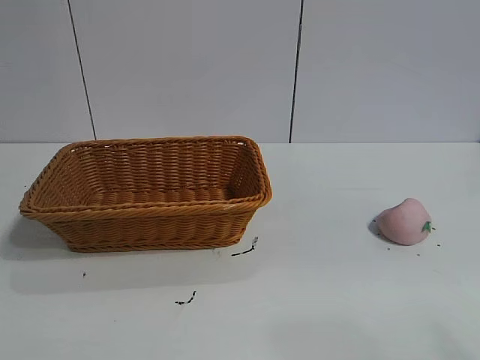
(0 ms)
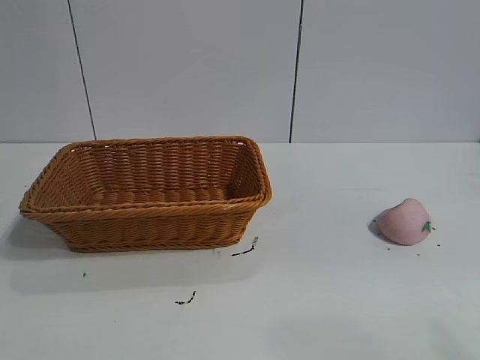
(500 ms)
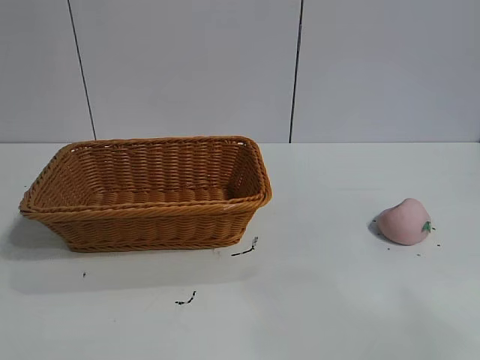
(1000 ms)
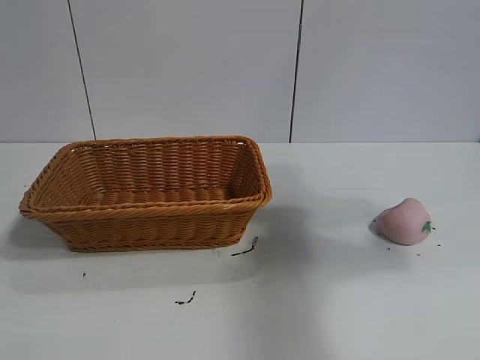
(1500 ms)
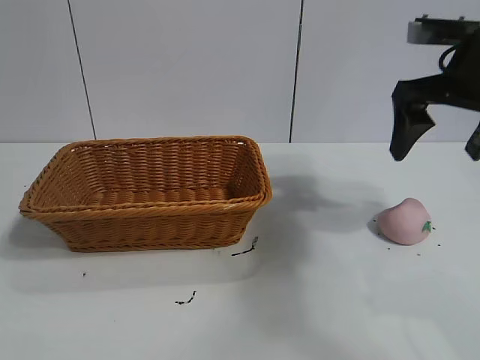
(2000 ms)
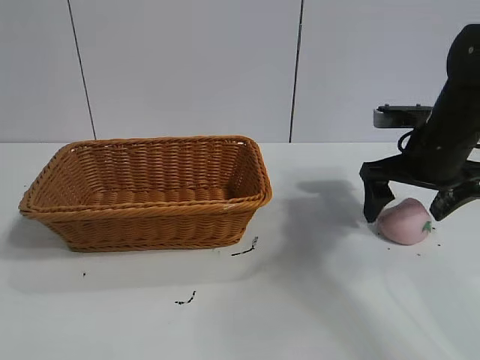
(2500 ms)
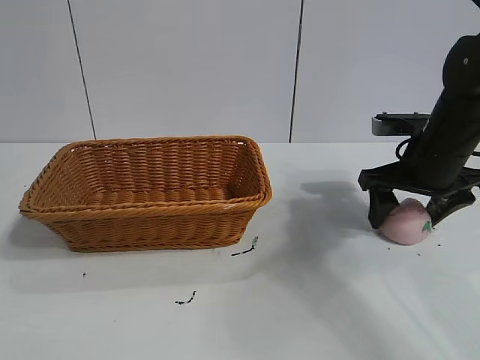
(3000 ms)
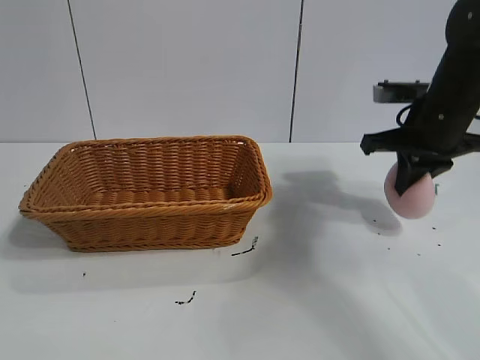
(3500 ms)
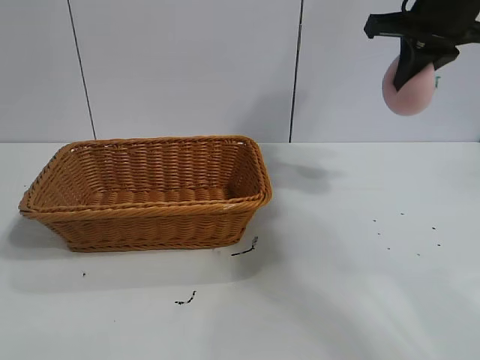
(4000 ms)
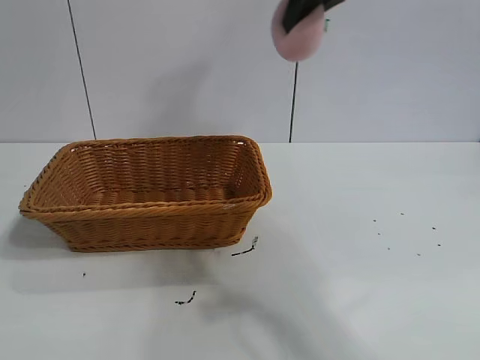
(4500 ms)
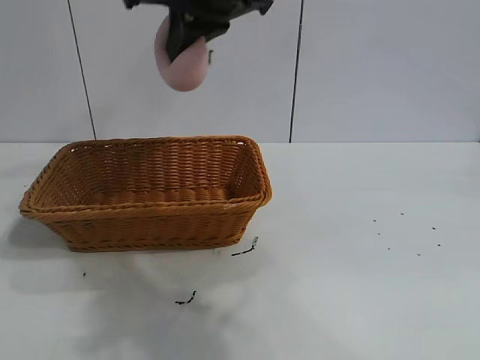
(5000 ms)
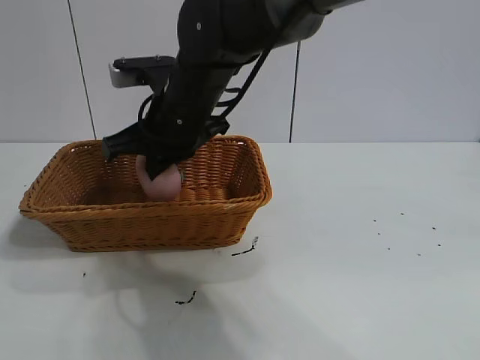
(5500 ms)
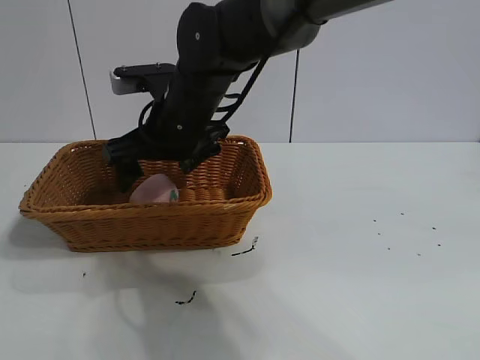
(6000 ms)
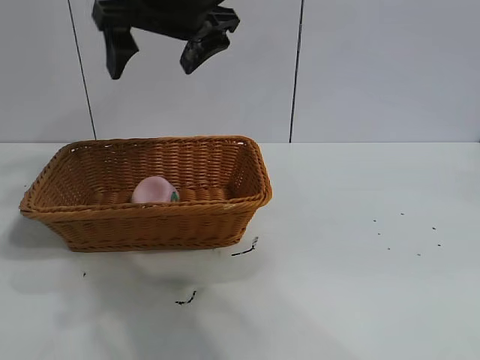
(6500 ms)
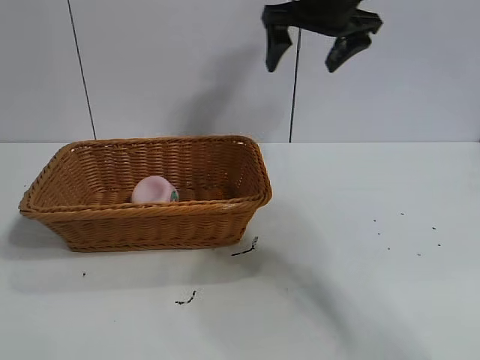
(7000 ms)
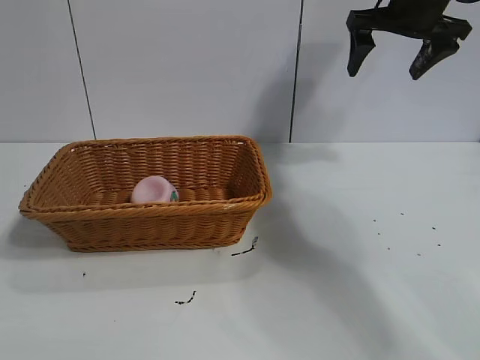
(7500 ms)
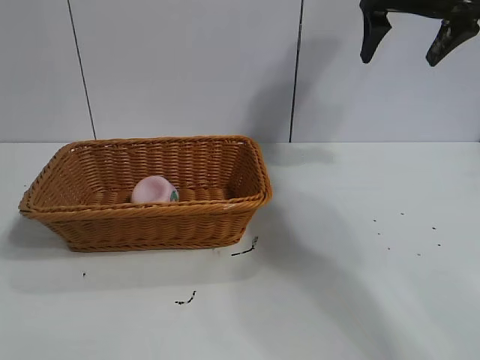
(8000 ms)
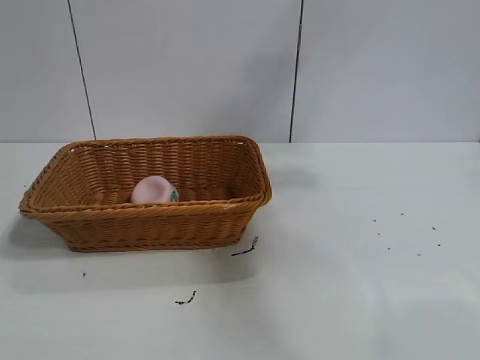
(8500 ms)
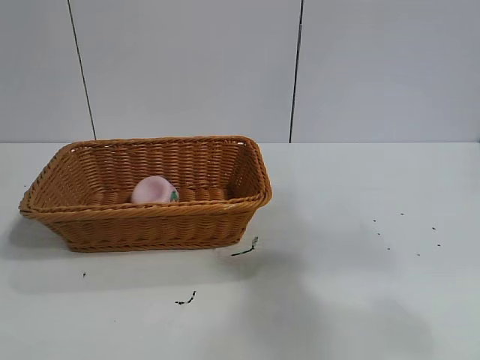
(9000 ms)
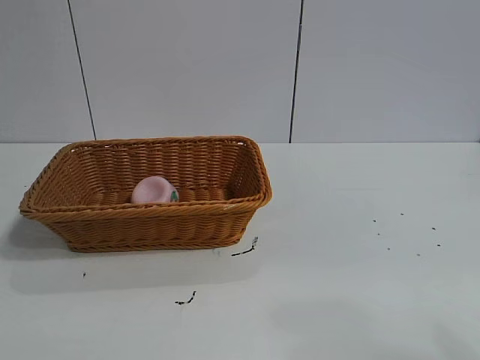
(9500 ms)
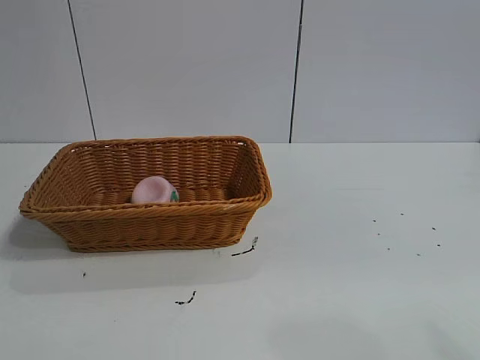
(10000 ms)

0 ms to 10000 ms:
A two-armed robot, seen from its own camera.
Task of the whole recording: pick up the peach and put it into the basket.
Step, 1000 ms to 3000 ms: Grasp the peach with right gripper.
Step, 3500 ms to 5500 ms: Place the peach in the basket with right gripper.
